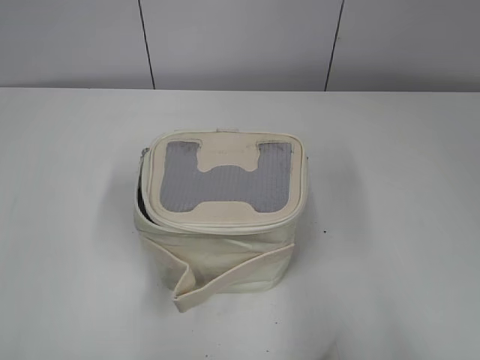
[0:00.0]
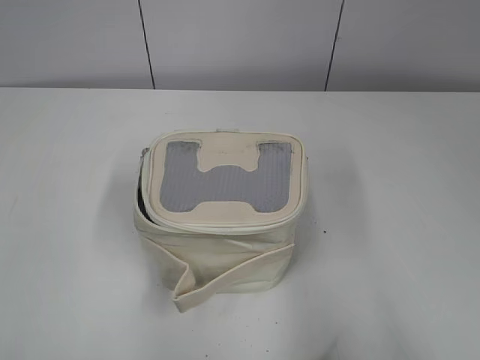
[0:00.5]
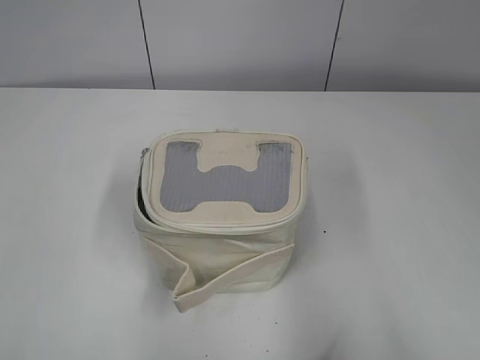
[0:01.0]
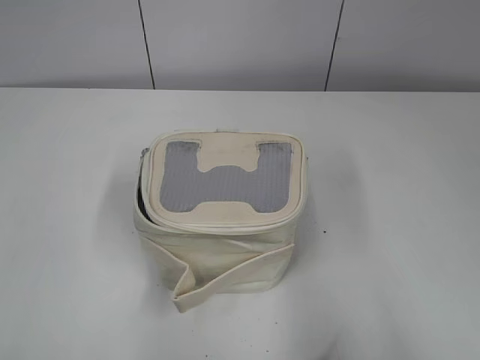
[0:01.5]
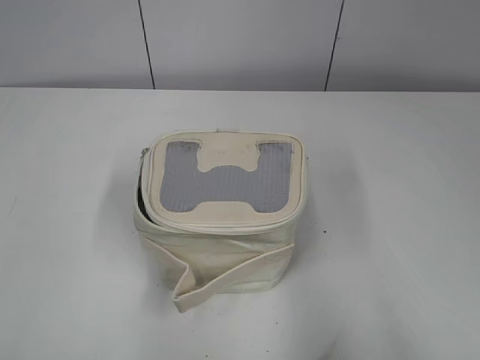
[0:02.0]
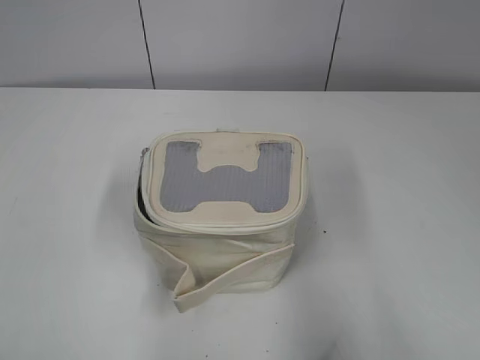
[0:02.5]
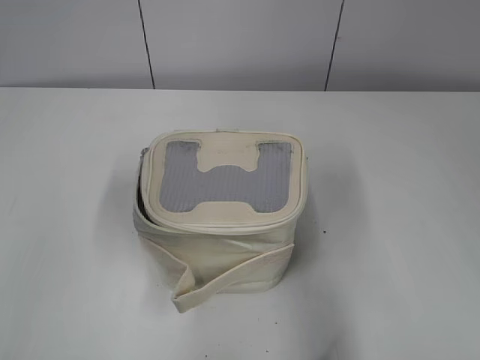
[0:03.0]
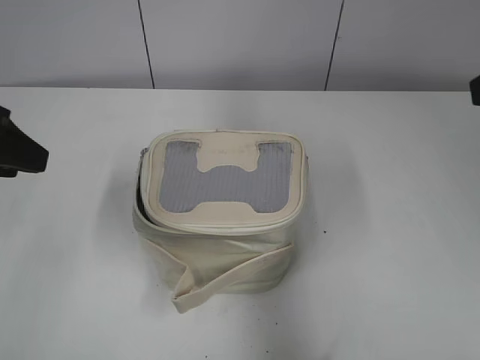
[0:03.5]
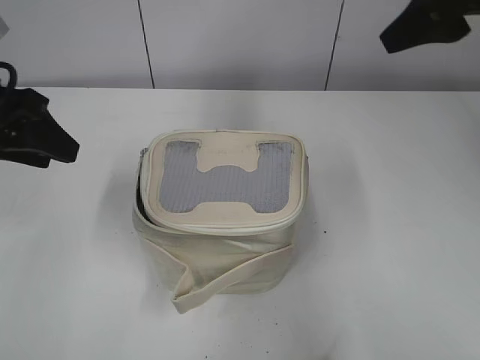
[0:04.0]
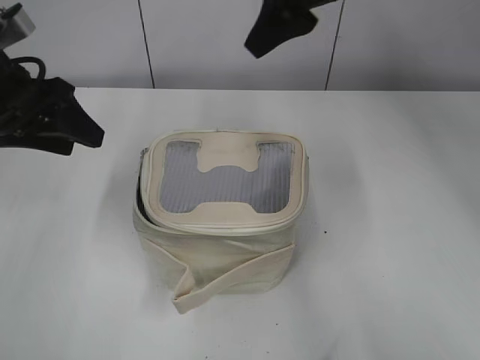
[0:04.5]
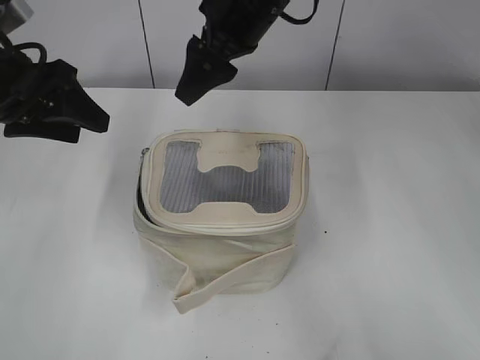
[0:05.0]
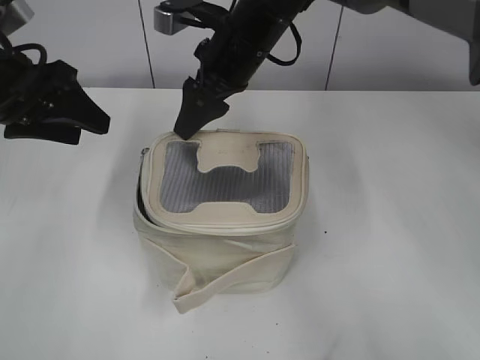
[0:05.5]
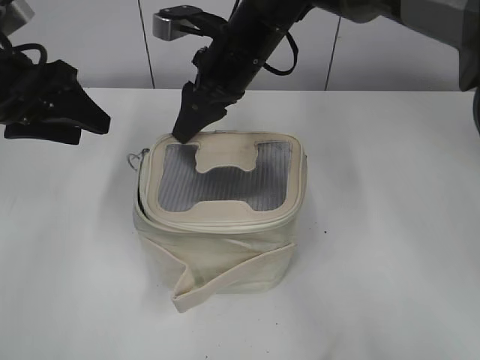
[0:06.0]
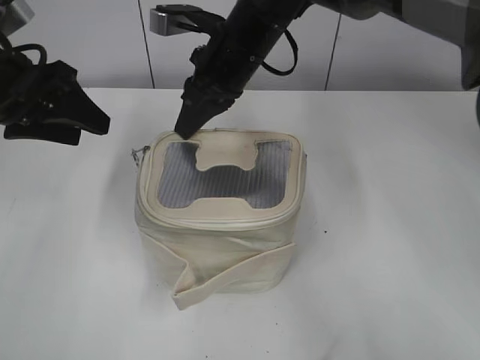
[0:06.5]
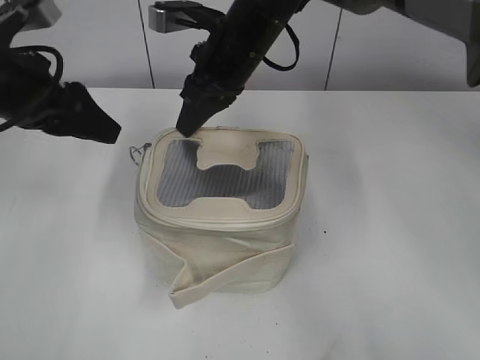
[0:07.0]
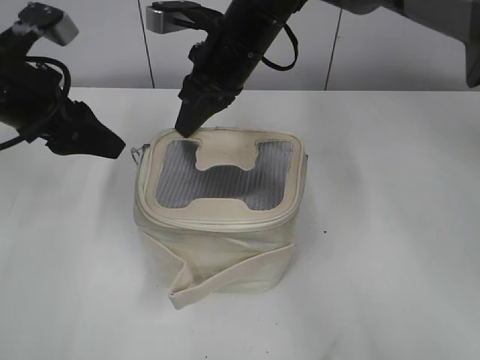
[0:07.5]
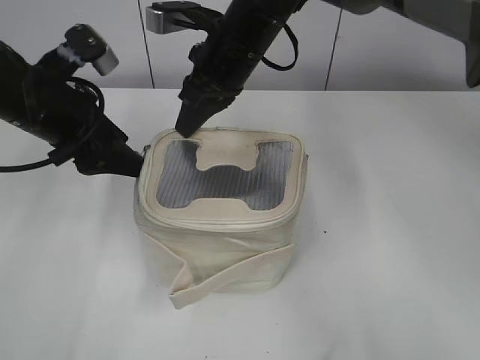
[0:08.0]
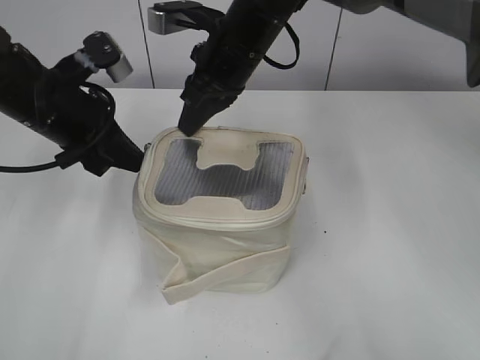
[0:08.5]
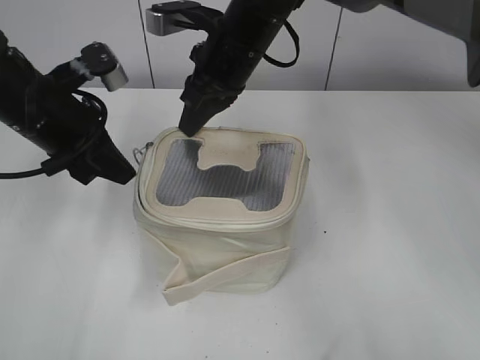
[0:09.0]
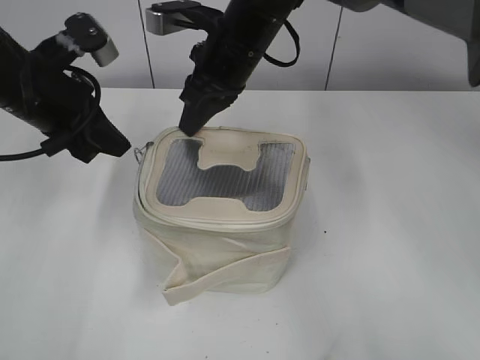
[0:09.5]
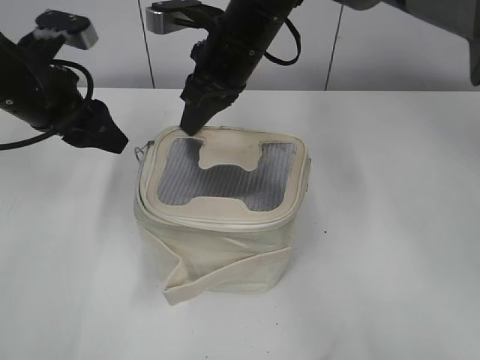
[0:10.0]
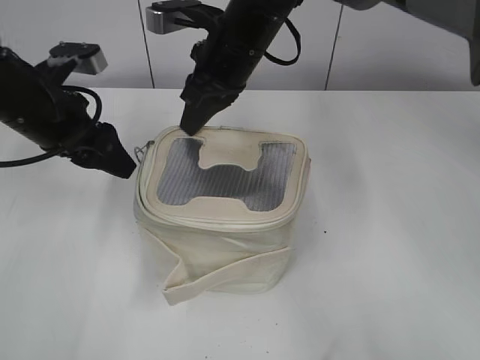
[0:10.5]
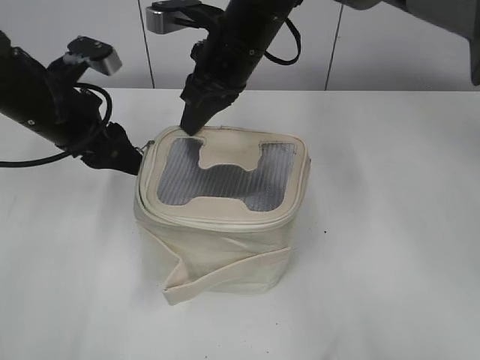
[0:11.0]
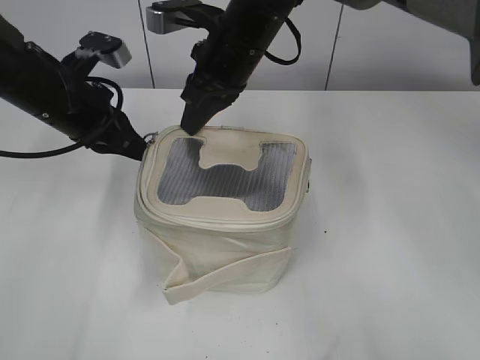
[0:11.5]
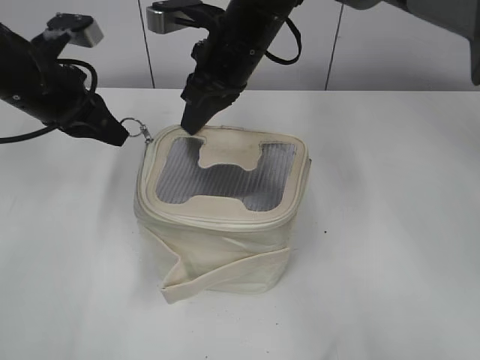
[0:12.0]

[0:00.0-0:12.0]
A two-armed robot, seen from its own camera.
0:02.0 to 0:04.0: Both grippers travel together forward, roughly 30 cm.
0:04.0 to 0:06.0: The right gripper is displaced to the left, downward and forward by roughly 25 cm.
0:06.0 to 0:08.0: The right gripper closes its fingers. The left gripper moves about 5 cm.
0:08.0 to 0:10.0: The left gripper closes and opens again.
0:10.0 to 0:12.0: The left gripper closes up.

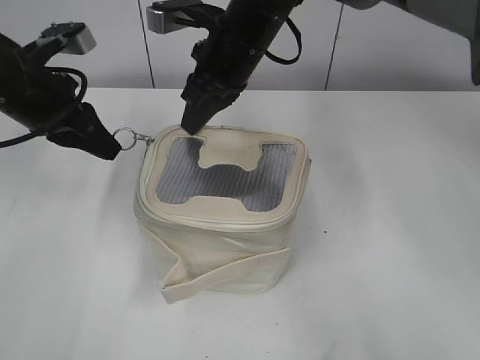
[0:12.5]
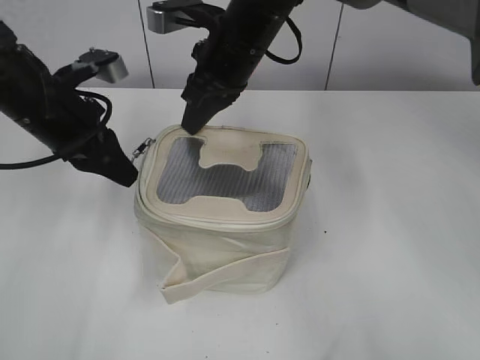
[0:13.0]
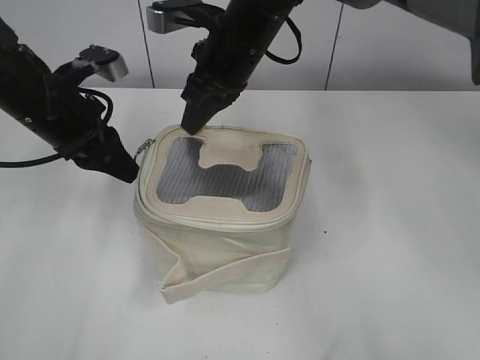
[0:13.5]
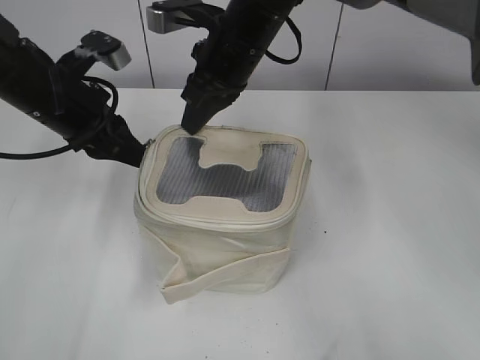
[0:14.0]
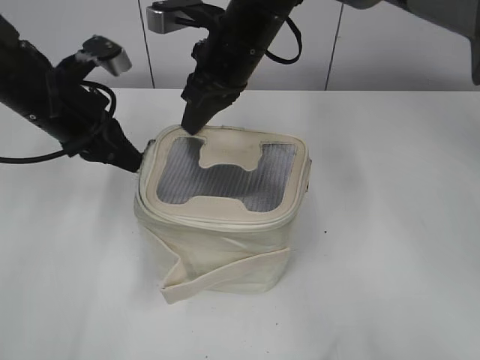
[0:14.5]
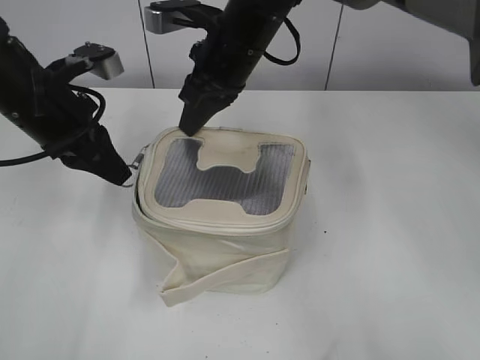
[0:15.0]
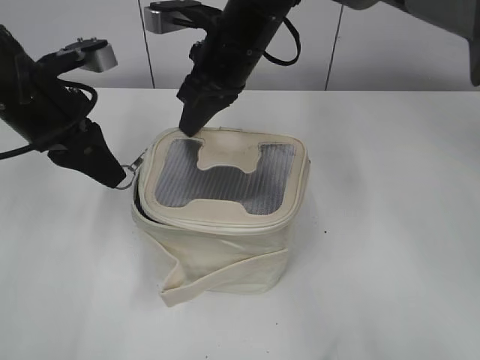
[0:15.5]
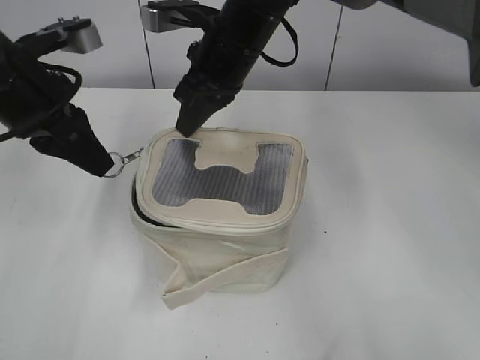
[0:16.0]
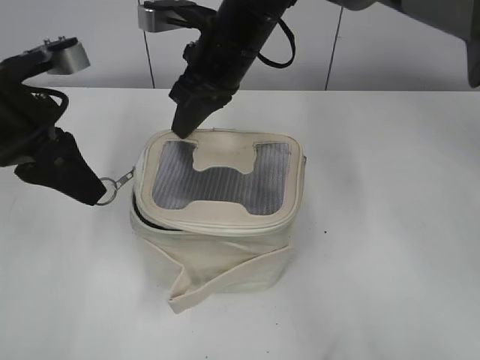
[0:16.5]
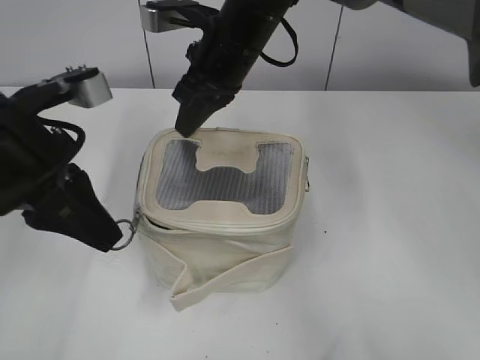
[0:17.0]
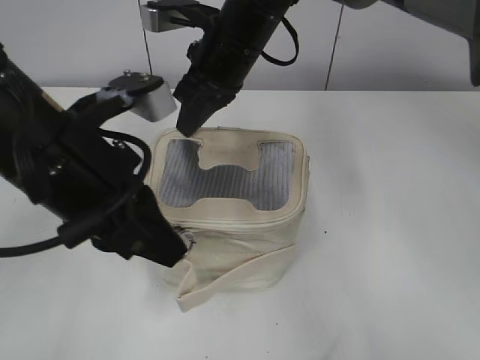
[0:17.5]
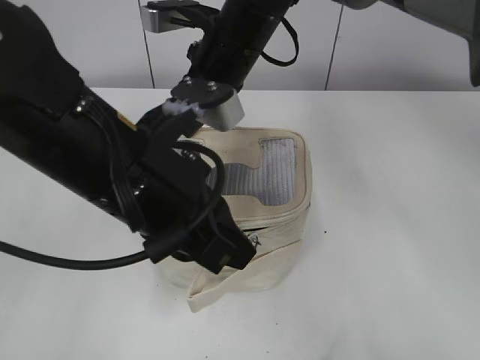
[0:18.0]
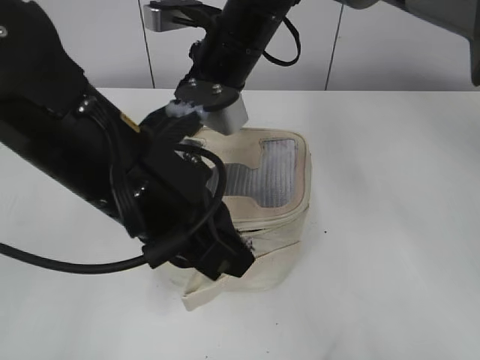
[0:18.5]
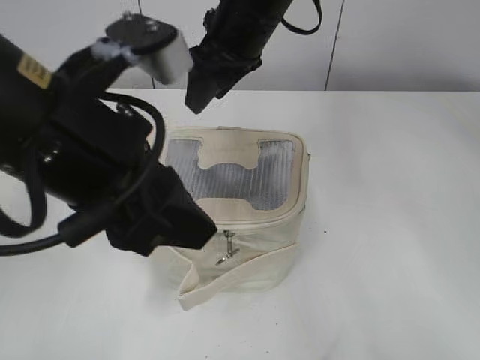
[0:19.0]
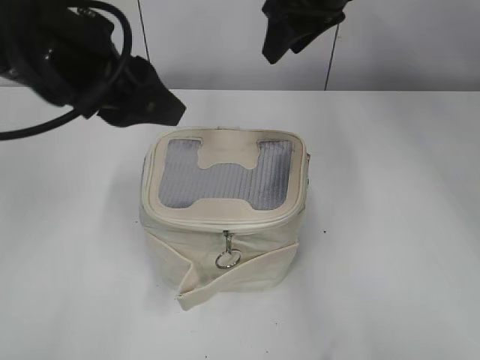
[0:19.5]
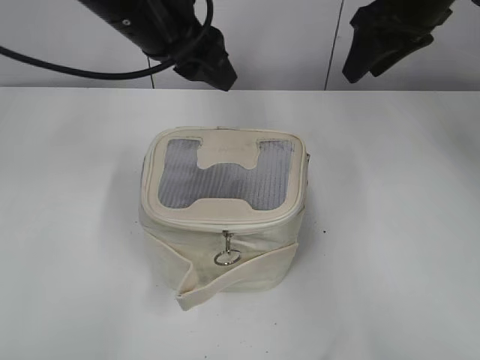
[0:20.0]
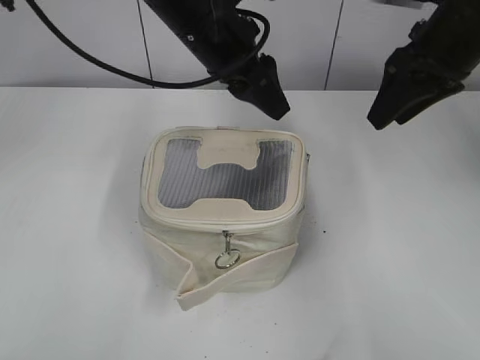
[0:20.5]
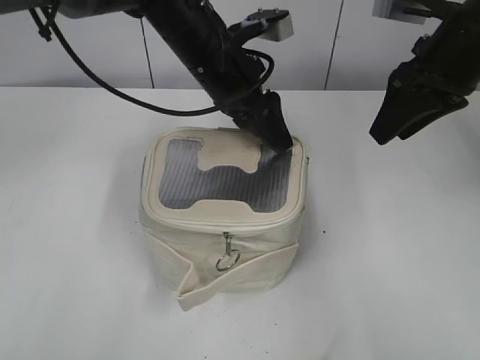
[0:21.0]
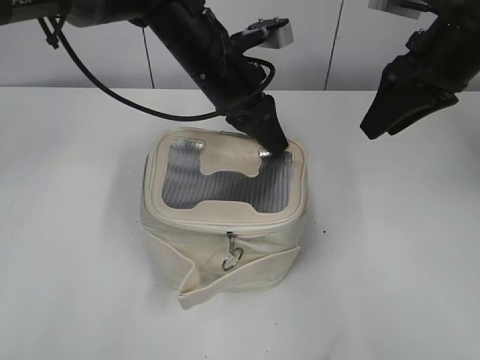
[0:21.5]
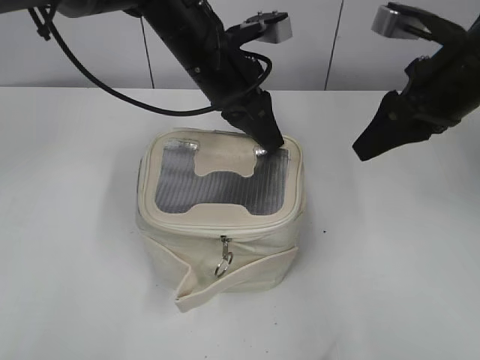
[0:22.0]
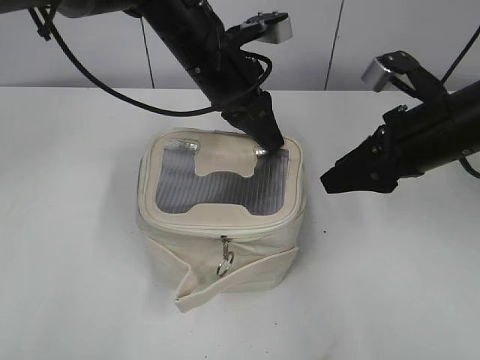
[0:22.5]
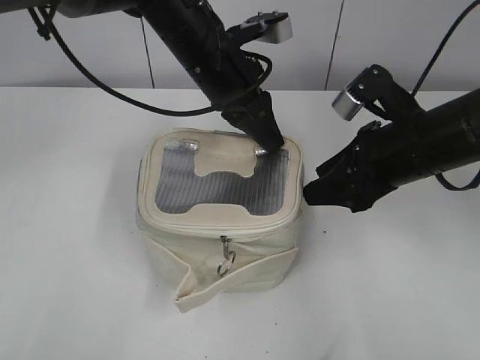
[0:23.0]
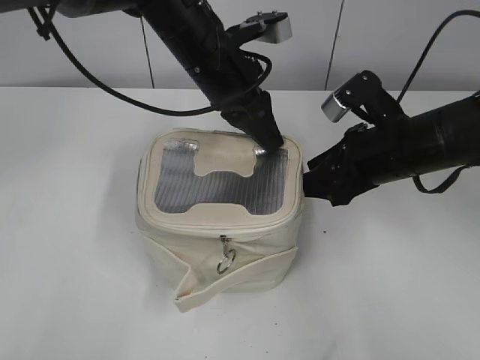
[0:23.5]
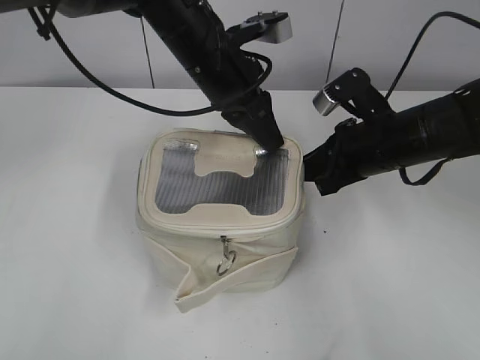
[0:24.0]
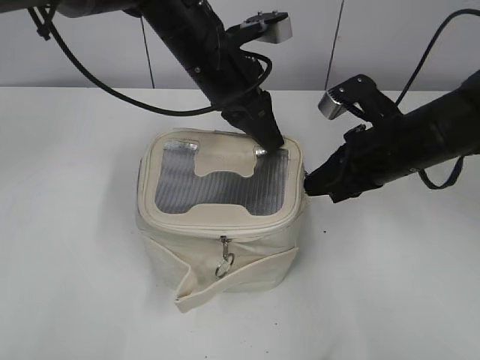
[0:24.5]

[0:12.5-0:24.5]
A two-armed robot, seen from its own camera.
Step, 0:12.5 to 0:18.5: Zip up the bag with your left hand.
0:12.5 to 0:14.5: The left gripper opens, then closes once more.
0:14.5 to 0:16.5: The left gripper shifts some 5 cm backward.
0:16.5 to 0:18.5: The left gripper shifts approximately 15 cm to the right and backward.
0:18.5 to 0:20.5: The left gripper is displaced forward by approximately 20 cm, and opens. Meanwhile the right gripper goes approximately 20 cm to the right, and opens up.
0:20.5 to 0:22.5: The right gripper travels downward and backward by approximately 10 cm. The left gripper closes.
0:22.5 to 0:24.5: The right gripper changes place by roughly 5 cm, and closes its fingers.

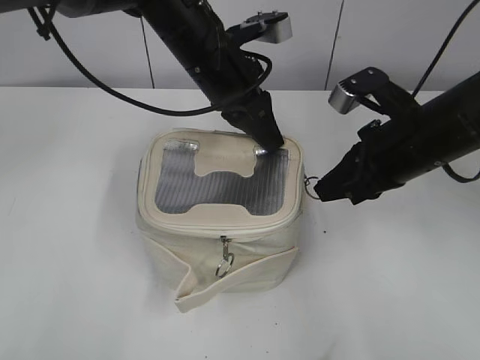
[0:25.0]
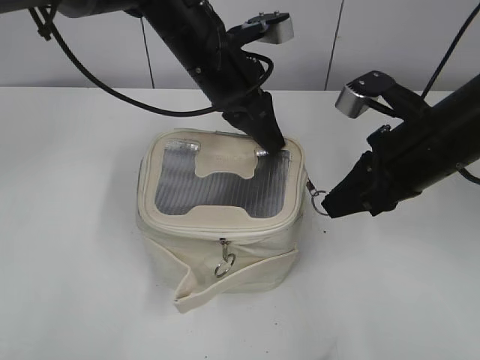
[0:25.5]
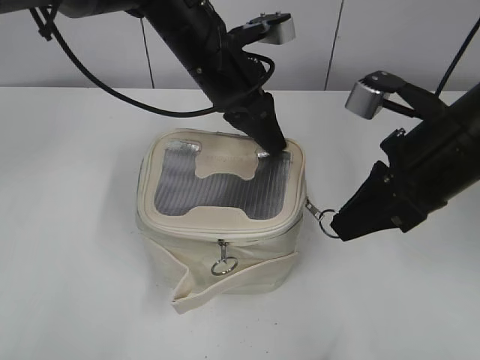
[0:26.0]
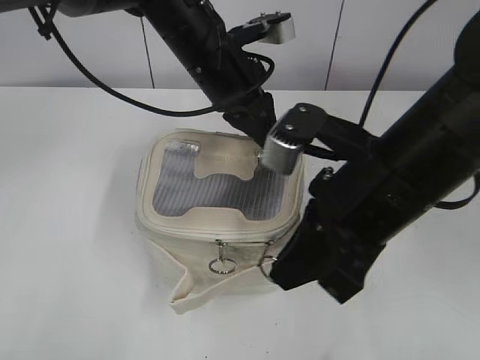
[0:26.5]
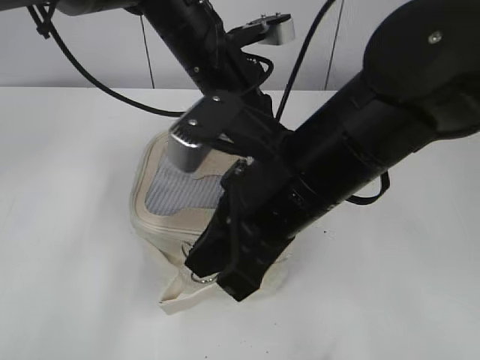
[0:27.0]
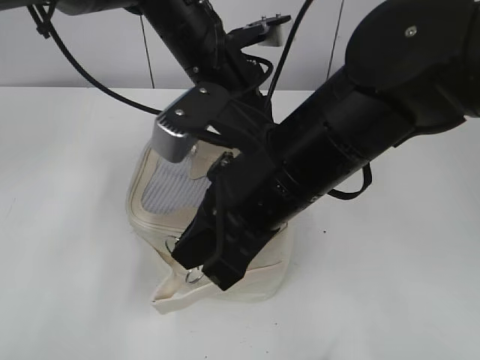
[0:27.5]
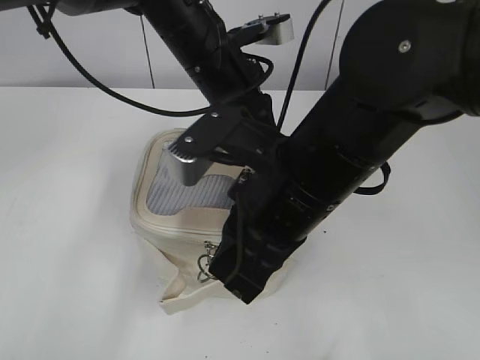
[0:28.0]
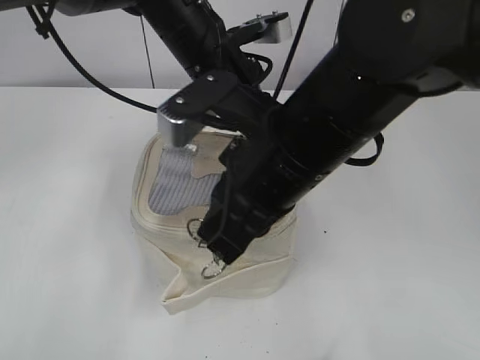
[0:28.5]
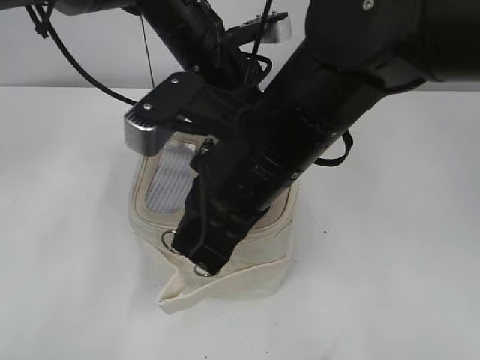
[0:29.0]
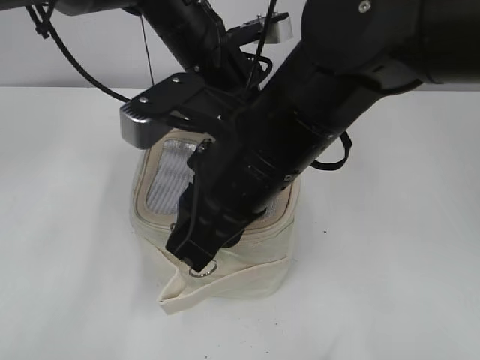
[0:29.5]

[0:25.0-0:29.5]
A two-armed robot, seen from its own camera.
0:25.0 to 0:27.0: The right gripper is displaced to the left and backward by approximately 15 cm.
